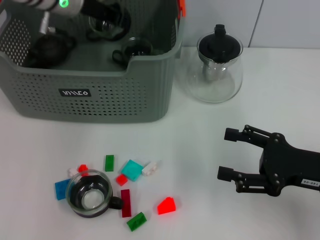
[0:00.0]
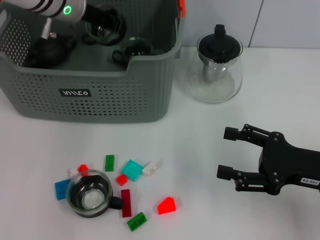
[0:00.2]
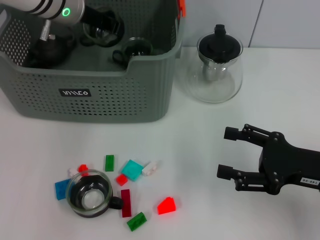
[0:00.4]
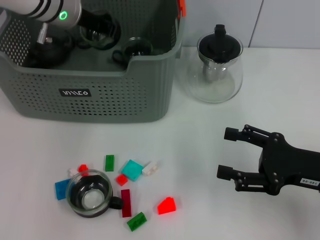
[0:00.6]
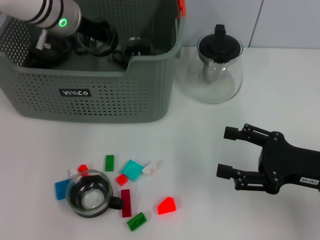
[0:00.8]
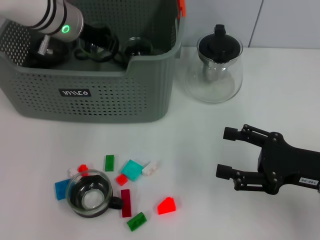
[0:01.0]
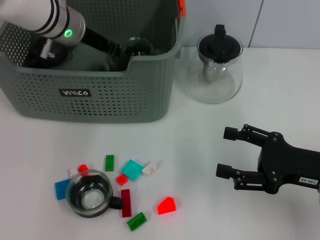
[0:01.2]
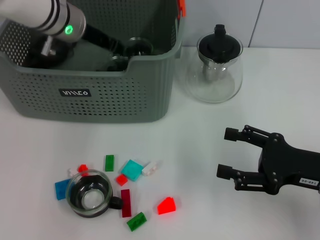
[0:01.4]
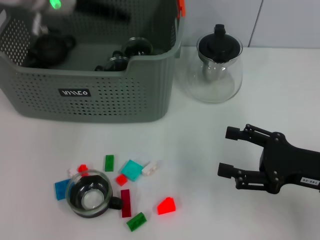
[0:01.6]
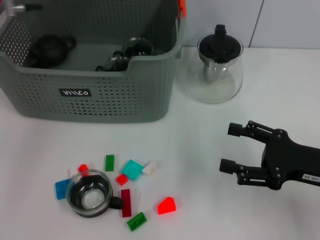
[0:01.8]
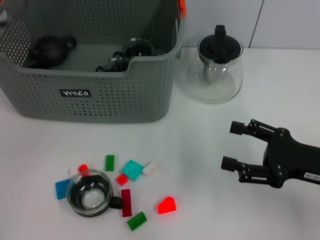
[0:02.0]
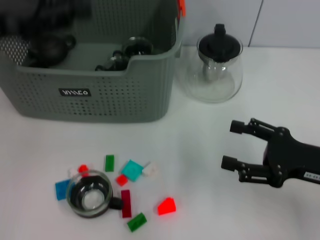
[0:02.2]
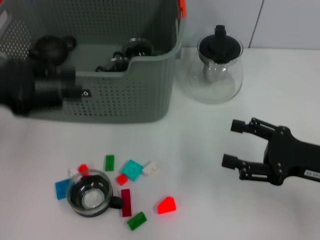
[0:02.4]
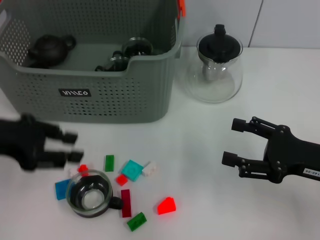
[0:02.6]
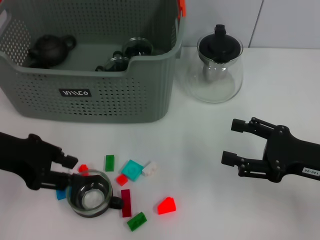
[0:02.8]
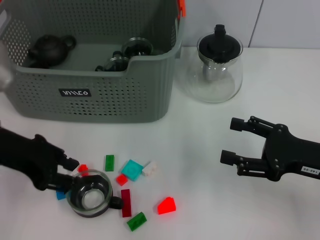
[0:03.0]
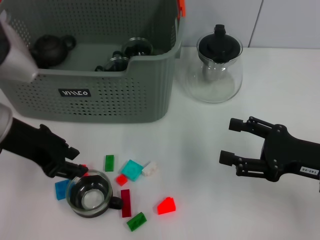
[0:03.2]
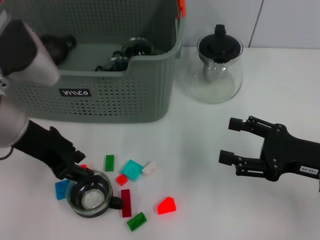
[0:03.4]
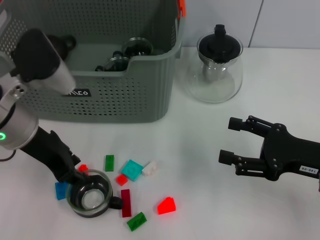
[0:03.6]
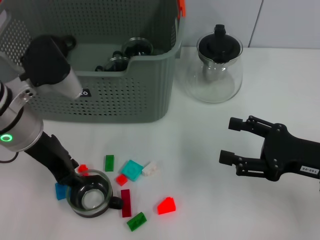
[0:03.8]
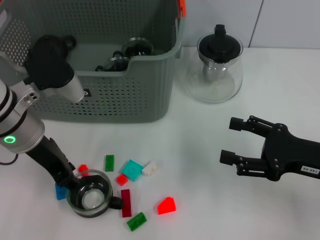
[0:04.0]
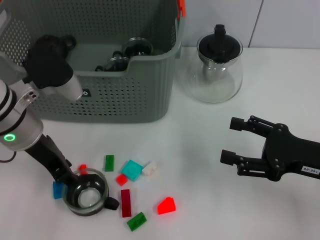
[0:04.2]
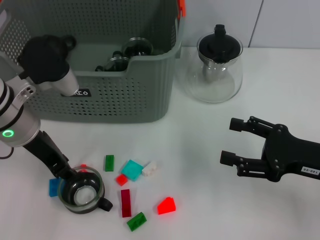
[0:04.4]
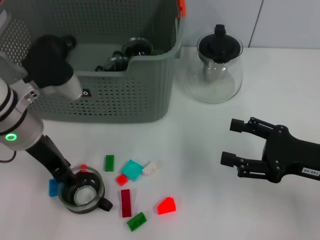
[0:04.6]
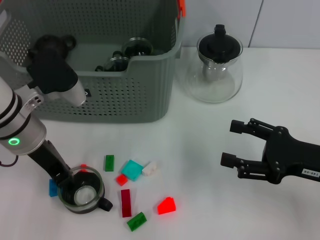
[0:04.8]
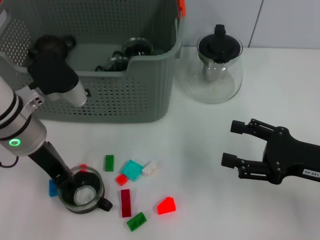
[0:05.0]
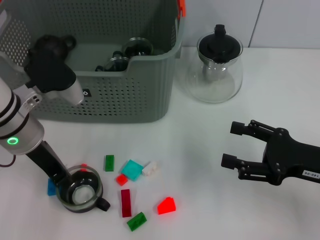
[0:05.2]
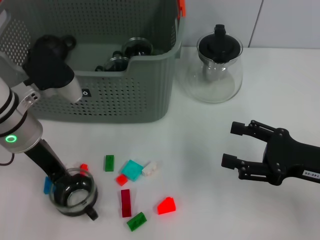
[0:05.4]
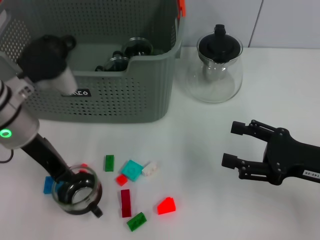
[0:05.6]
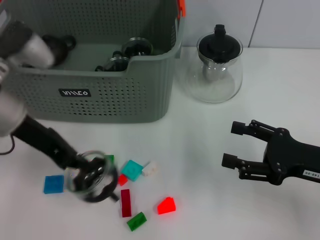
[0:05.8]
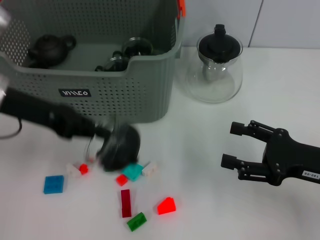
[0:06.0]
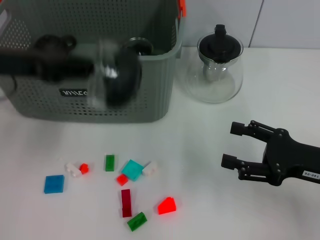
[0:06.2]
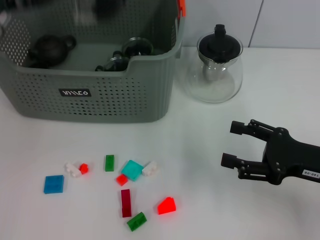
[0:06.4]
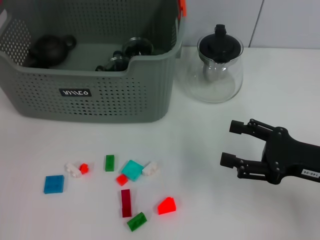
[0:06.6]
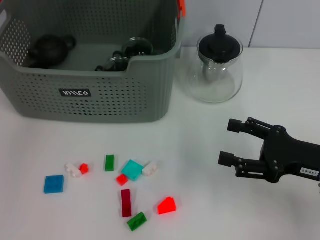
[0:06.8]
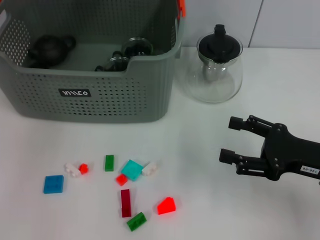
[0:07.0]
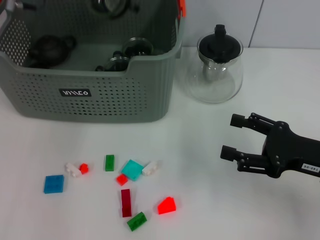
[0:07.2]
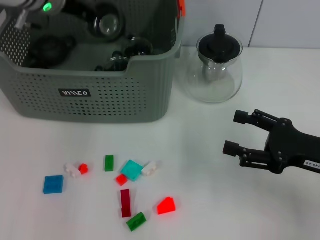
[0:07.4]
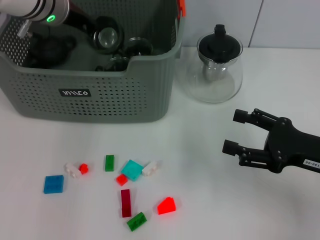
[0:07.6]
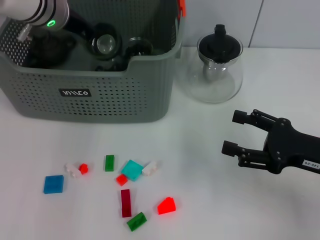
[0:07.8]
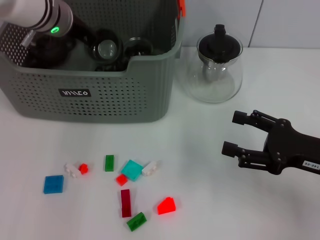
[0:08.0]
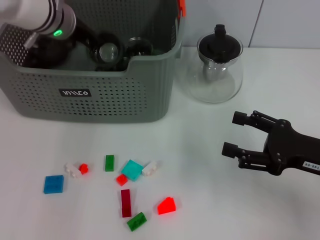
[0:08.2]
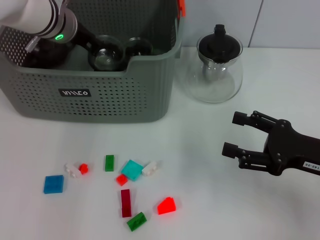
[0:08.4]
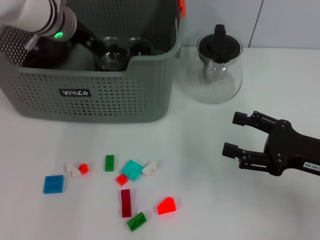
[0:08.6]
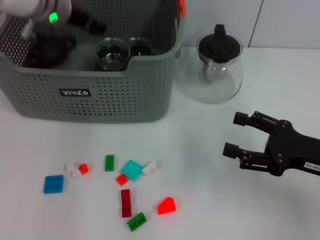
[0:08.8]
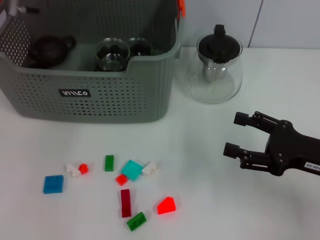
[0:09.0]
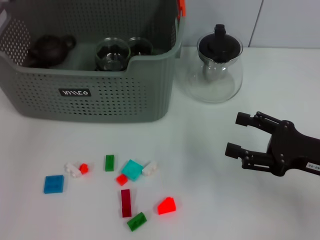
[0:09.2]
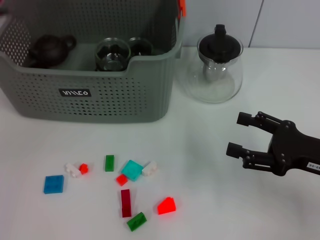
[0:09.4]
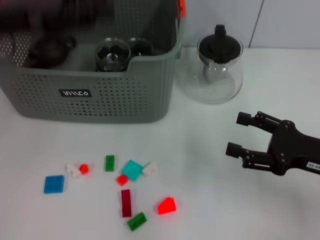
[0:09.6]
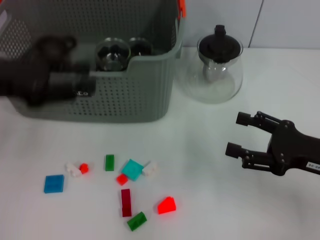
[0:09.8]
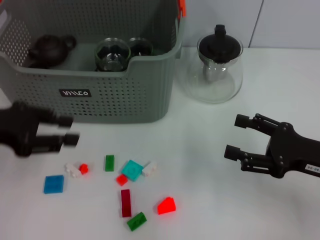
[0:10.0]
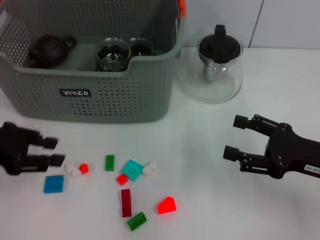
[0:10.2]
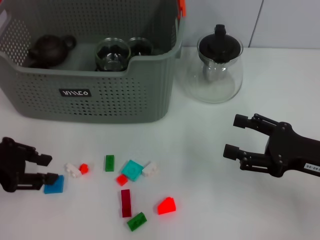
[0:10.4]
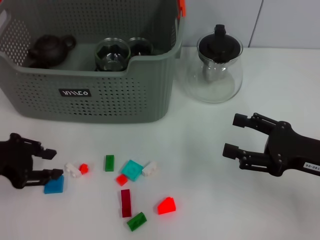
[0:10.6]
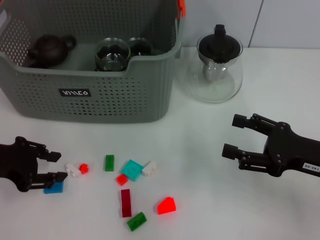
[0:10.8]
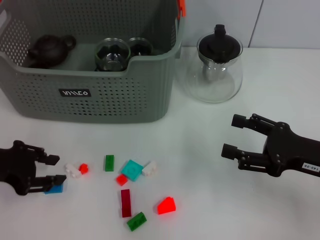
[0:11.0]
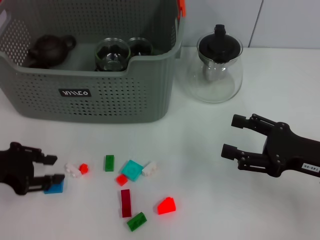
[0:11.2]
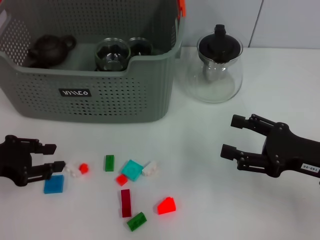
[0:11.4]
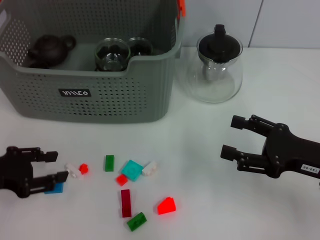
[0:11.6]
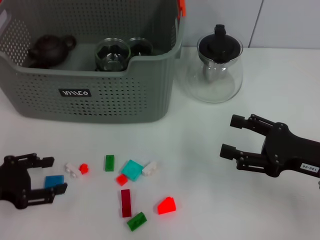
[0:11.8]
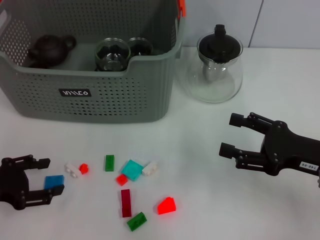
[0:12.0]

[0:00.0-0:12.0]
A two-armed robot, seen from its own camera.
Task of the whole recording: pick up the teacup on the table and place it into the storage bin, pick up the block on the table and place it into the storage bin.
0:00.0 to 0:01.6: The grippers make only small movements.
0:01.6 to 0:03.0: The left gripper travels backward by roughly 20 cm.
0:03.0 to 0:04.4: The left gripper shifts by roughly 5 cm.
0:04.4 to 0:06.0: The left gripper moves approximately 5 cm, and closes its fingers.
0:06.0 to 0:07.6: The left gripper goes some 15 cm forward and to the right.
0:07.6 to 0:09.0: The left gripper opens up.
0:09.0 to 0:10.4: The left gripper heads backward, to the left and downward, covering about 25 cm.
0:10.4 to 0:12.0: The left gripper goes roughly 10 cm downward.

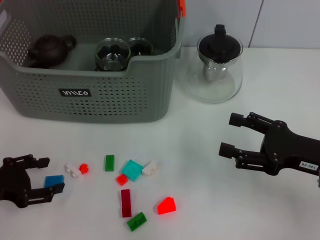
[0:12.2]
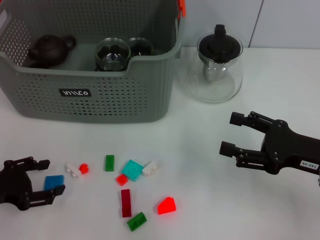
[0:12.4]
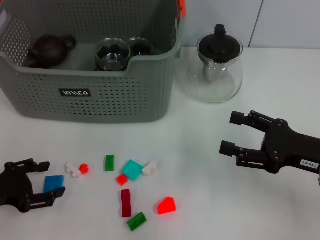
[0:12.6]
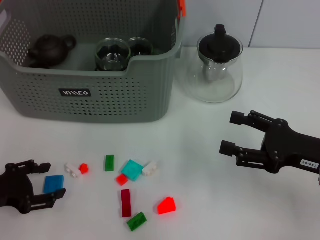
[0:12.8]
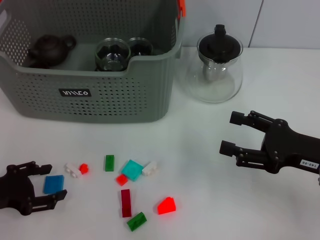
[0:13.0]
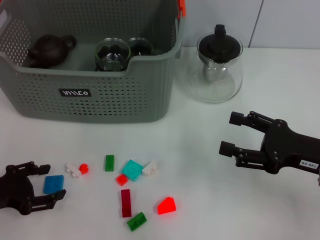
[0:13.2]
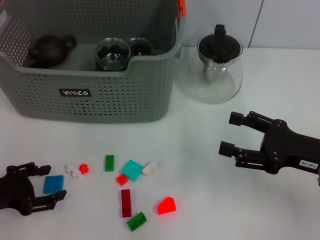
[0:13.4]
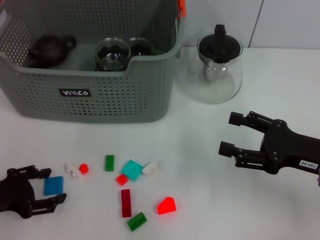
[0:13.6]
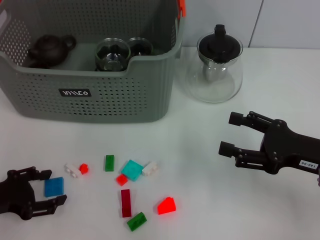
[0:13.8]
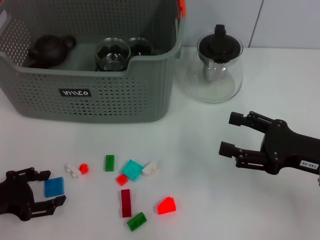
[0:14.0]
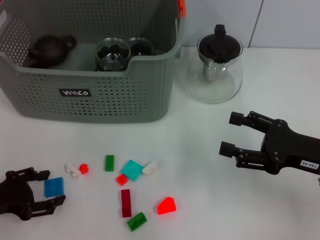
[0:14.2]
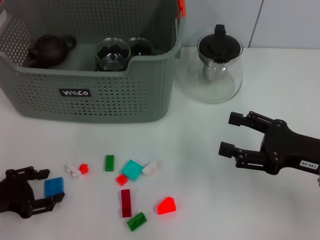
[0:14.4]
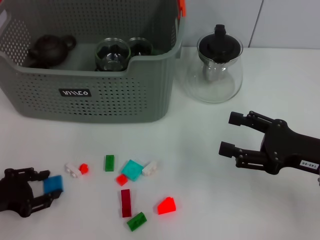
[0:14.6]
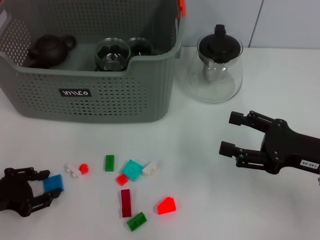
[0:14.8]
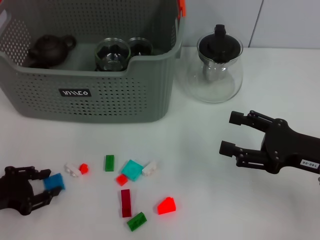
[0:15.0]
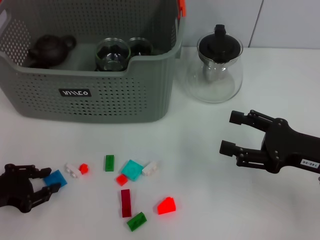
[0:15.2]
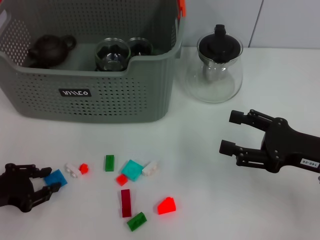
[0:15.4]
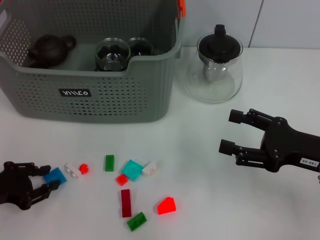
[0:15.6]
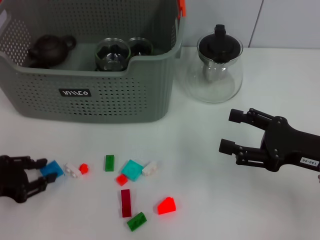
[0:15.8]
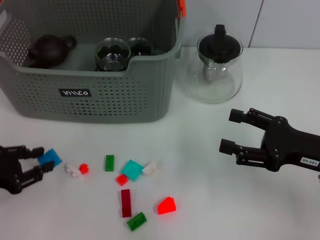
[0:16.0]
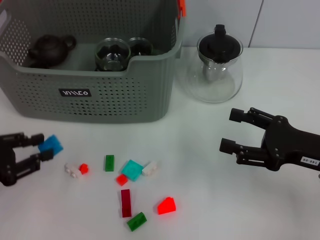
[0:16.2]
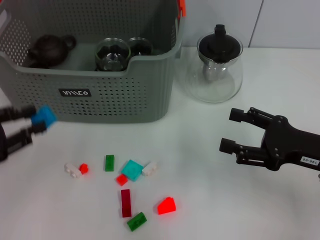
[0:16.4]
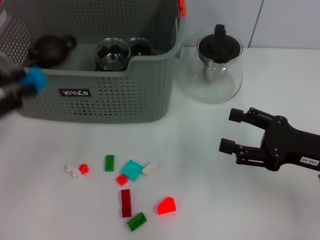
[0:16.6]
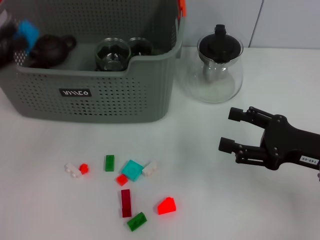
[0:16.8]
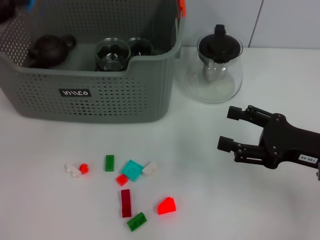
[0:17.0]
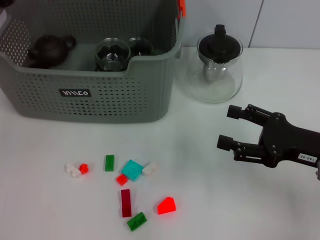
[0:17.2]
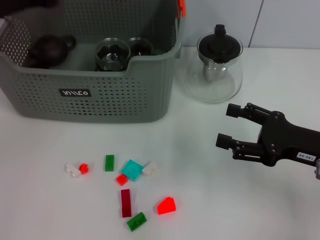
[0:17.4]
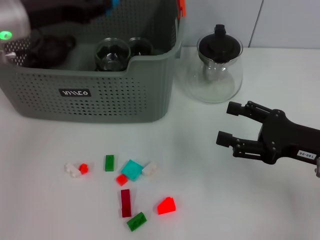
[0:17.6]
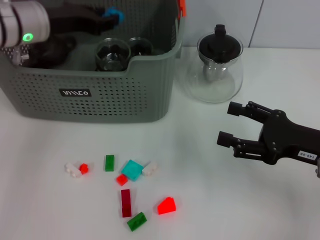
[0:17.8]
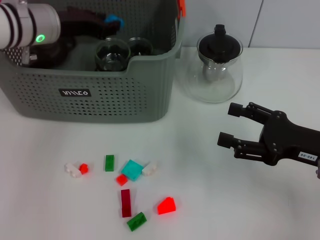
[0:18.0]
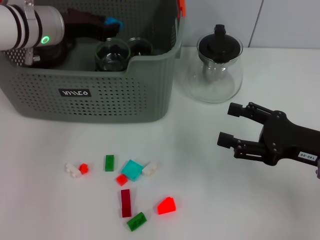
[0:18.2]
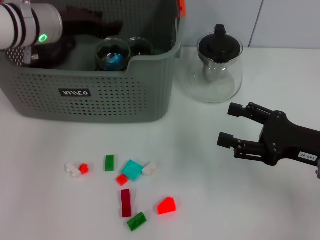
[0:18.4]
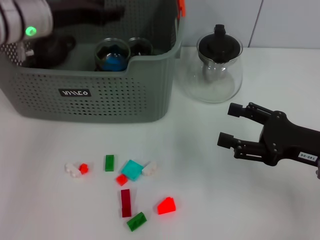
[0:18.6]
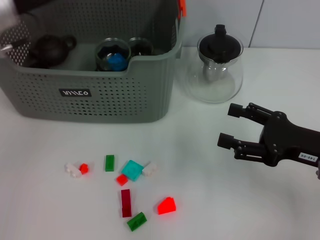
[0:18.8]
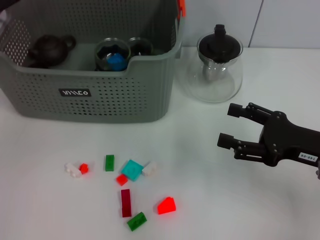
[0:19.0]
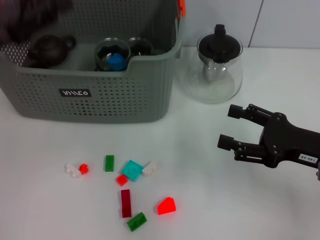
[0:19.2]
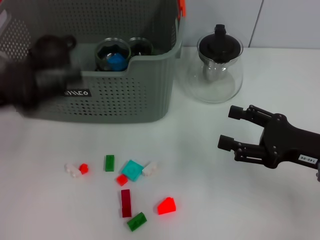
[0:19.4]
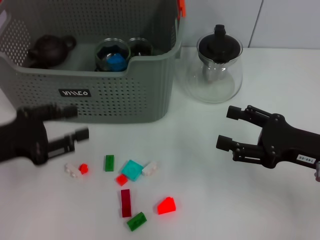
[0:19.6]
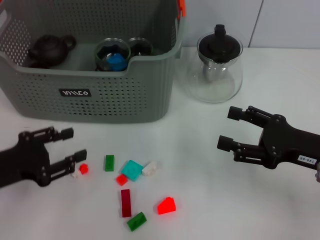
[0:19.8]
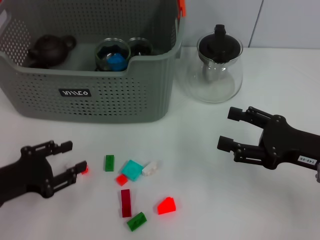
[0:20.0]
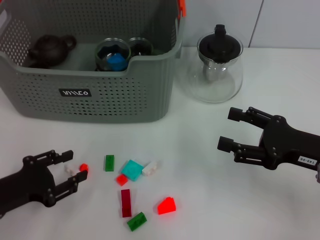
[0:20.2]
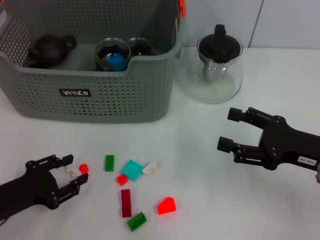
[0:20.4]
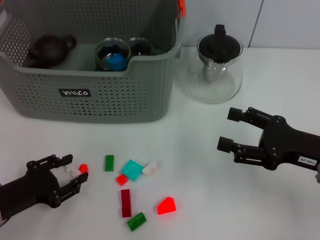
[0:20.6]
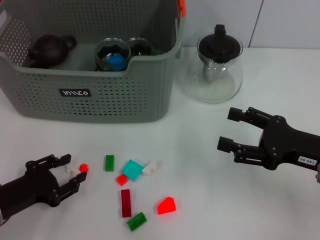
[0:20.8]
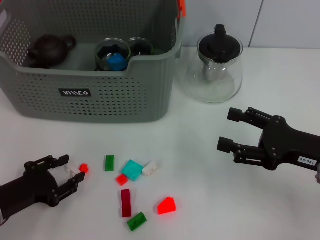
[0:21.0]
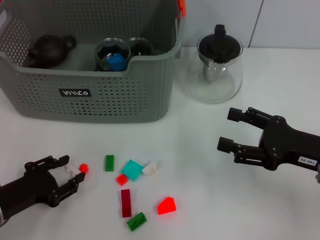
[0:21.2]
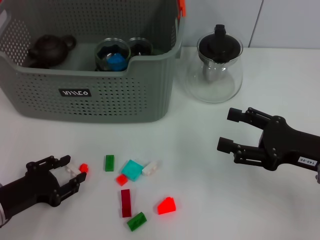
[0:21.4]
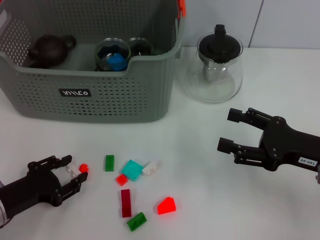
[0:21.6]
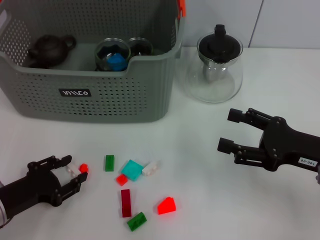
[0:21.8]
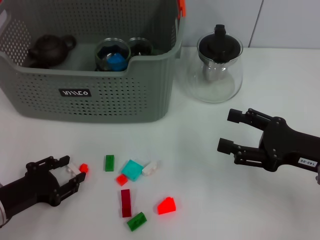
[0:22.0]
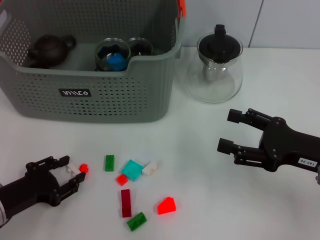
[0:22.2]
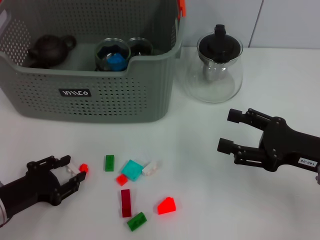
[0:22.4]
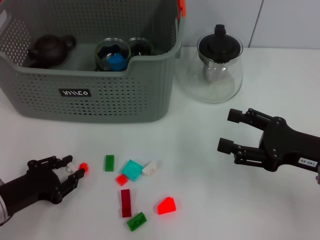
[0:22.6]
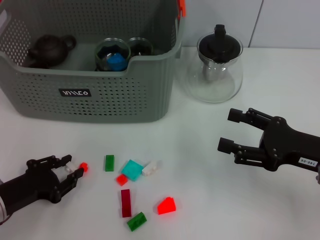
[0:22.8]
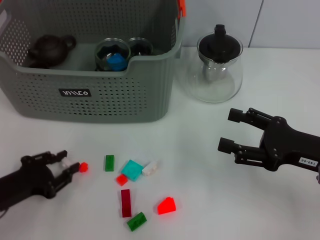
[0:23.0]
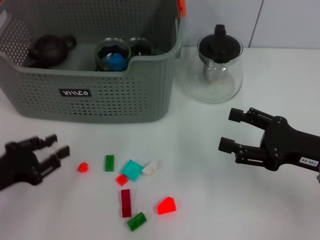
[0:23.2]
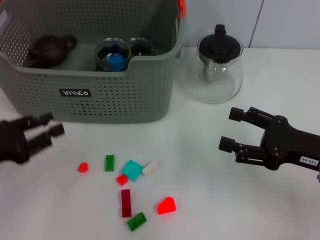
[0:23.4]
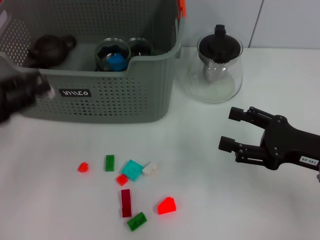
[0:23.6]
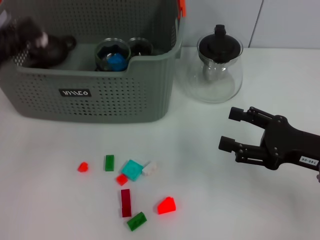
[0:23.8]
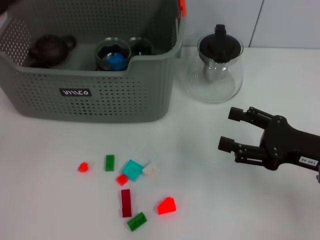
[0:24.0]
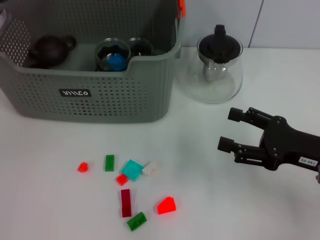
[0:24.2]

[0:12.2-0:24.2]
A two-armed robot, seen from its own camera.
Task of the whole recording: pick up the teacup on the table and place it into the storage bin, pick up the block on the table and place it into the storage bin.
Step, 0:12.2 to 0:18.8: Place the dark blue block in the storage box with left gripper.
Step, 0:19.0 to 0:22.8: Grasp the white block with left gripper.
0:12.2 to 0:13.8: The grippers move only a little.
0:13.8 to 0:15.2: The left gripper closes.
0:15.2 to 0:16.6: The left gripper is displaced upward by roughly 10 cm.
0:16.6 to 0:18.2: The left gripper travels forward and to the right by approximately 25 cm.
0:18.2 to 0:19.8: The left gripper heads backward, to the left and downward, covering approximately 25 cm.
0:19.8 to 0:21.2: The left gripper goes approximately 5 cm downward.
0:21.2 to 0:22.6: Neither gripper changes place.
0:22.6 to 0:24.2: The left gripper travels upward and forward by some 25 cm.
